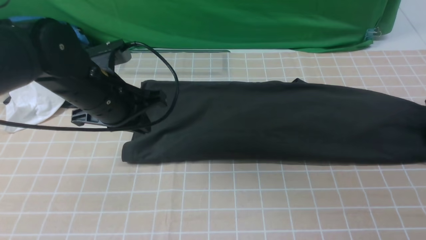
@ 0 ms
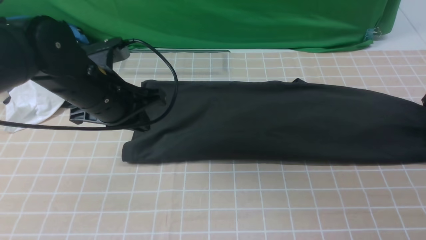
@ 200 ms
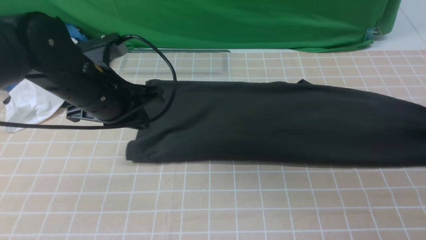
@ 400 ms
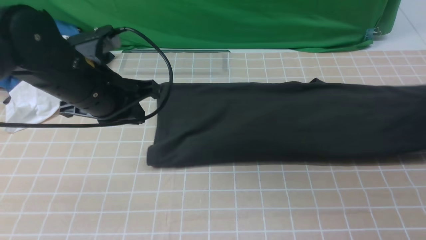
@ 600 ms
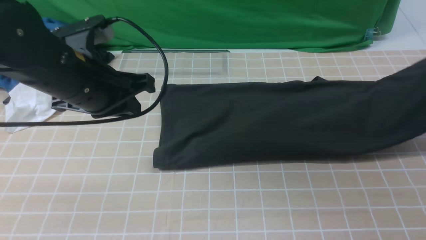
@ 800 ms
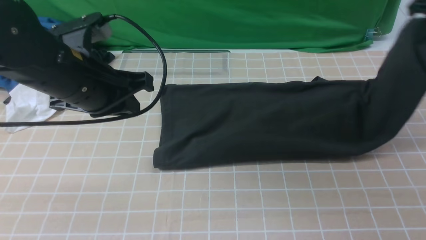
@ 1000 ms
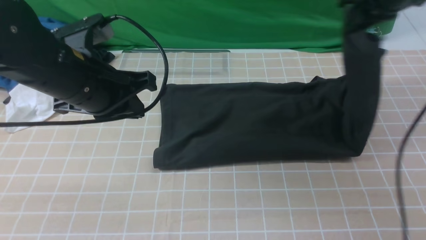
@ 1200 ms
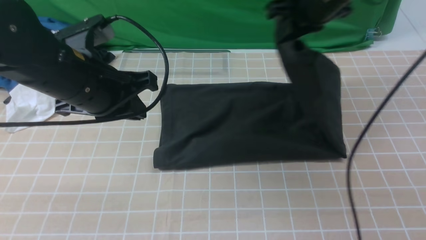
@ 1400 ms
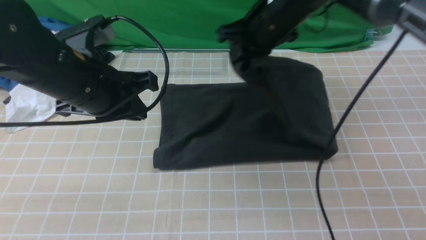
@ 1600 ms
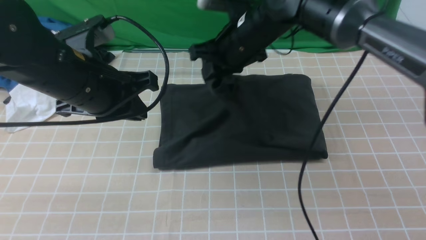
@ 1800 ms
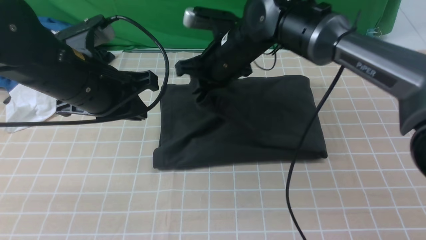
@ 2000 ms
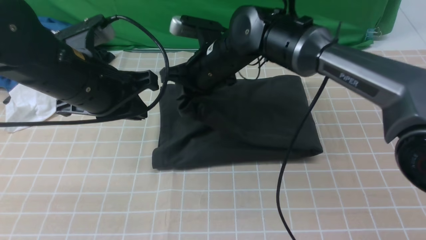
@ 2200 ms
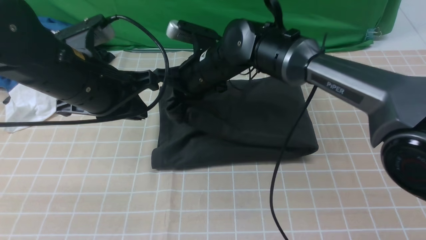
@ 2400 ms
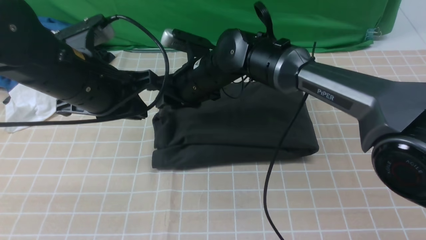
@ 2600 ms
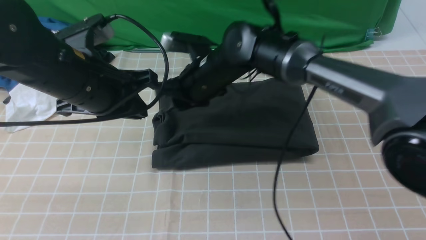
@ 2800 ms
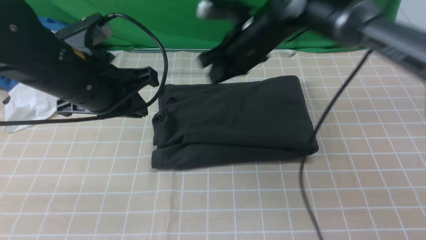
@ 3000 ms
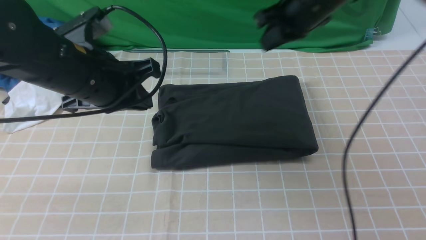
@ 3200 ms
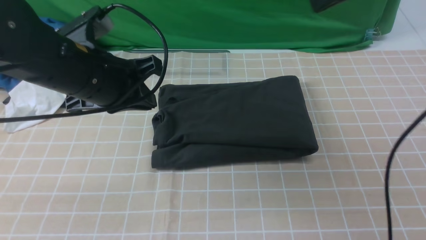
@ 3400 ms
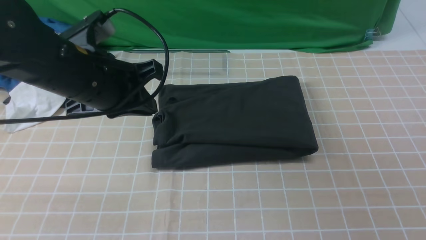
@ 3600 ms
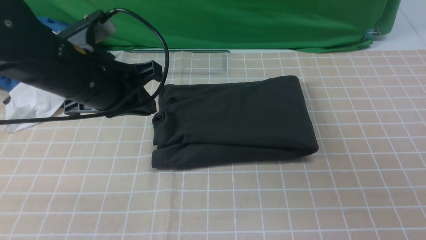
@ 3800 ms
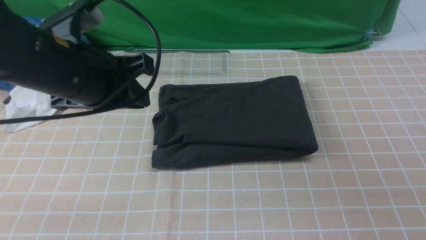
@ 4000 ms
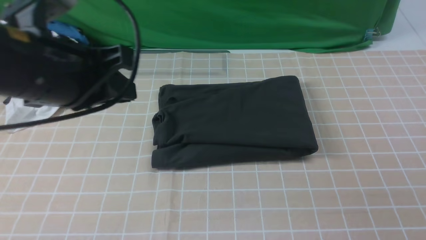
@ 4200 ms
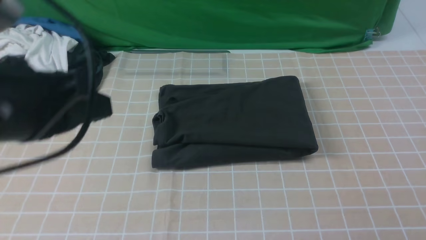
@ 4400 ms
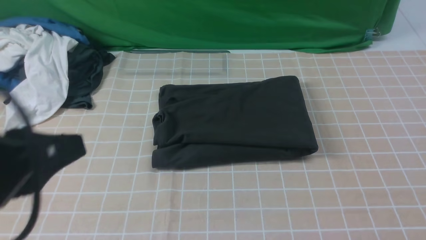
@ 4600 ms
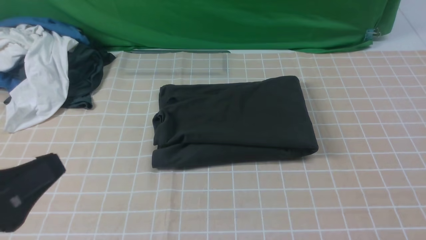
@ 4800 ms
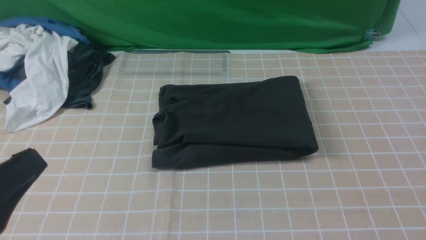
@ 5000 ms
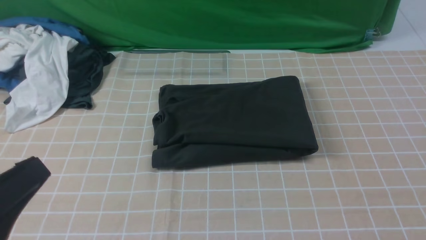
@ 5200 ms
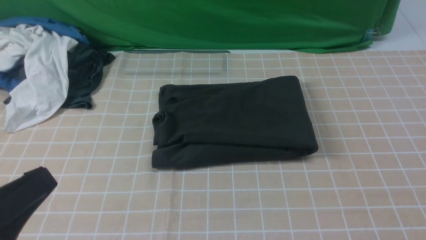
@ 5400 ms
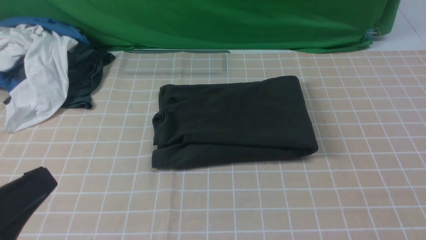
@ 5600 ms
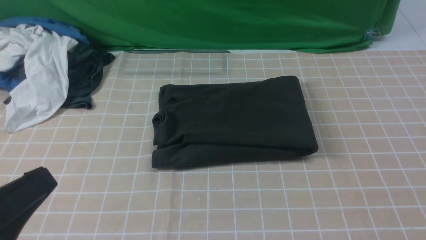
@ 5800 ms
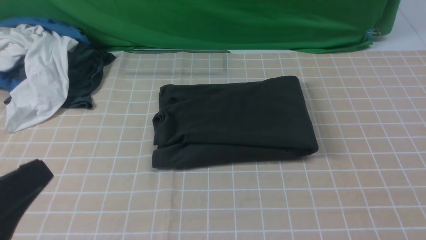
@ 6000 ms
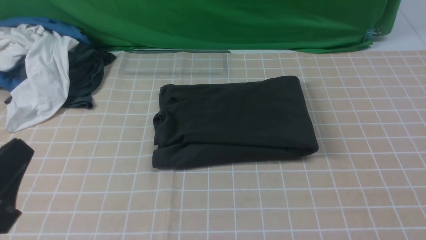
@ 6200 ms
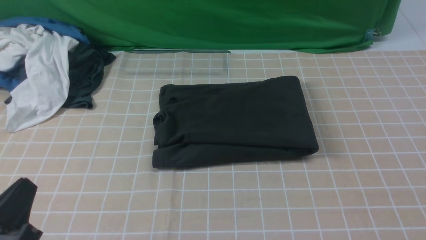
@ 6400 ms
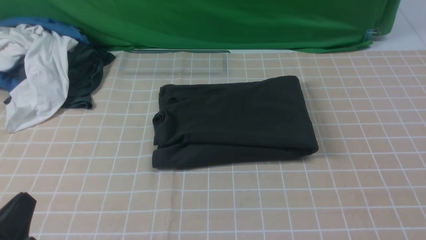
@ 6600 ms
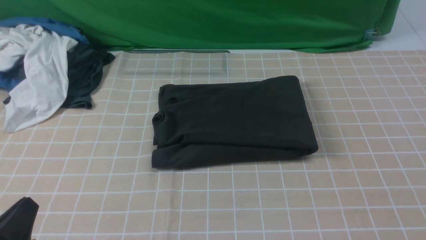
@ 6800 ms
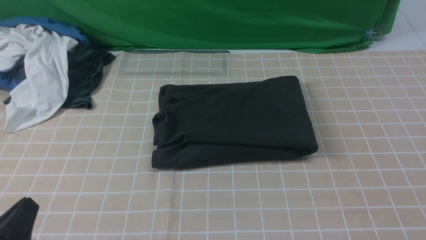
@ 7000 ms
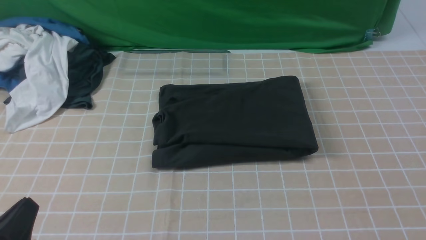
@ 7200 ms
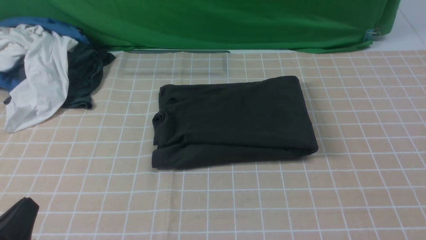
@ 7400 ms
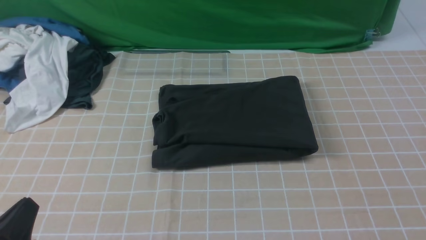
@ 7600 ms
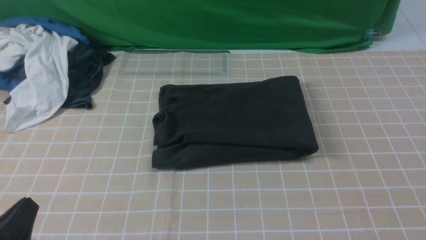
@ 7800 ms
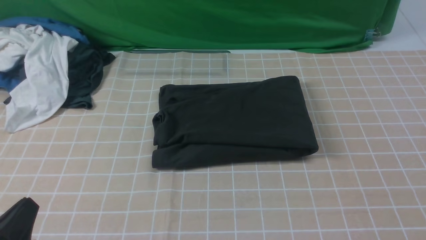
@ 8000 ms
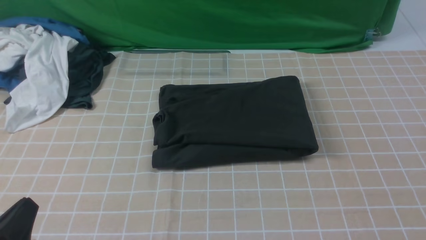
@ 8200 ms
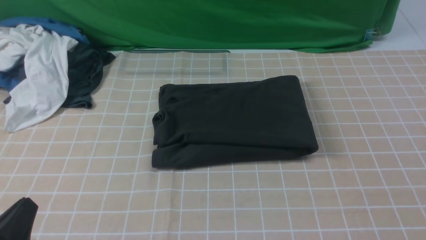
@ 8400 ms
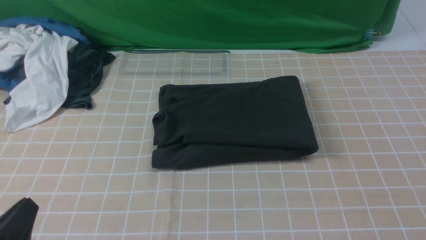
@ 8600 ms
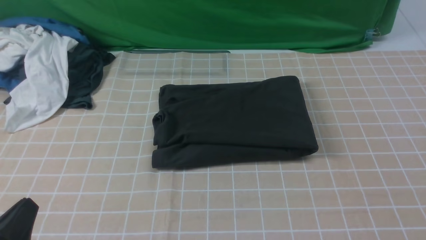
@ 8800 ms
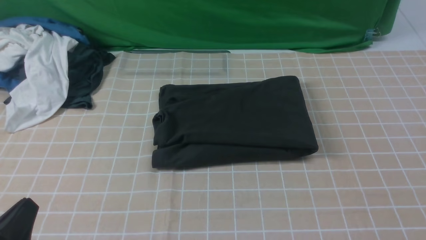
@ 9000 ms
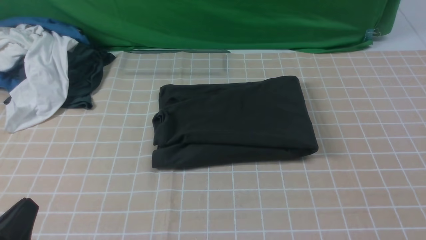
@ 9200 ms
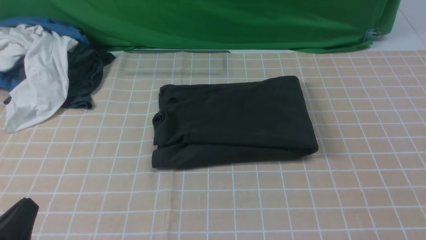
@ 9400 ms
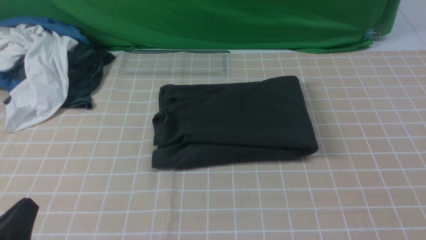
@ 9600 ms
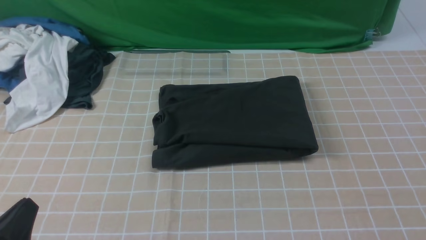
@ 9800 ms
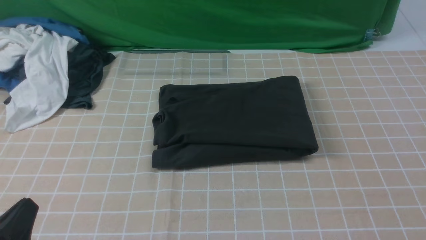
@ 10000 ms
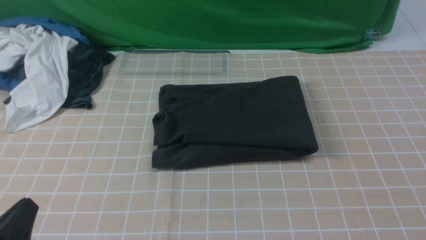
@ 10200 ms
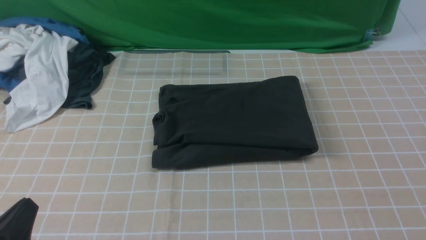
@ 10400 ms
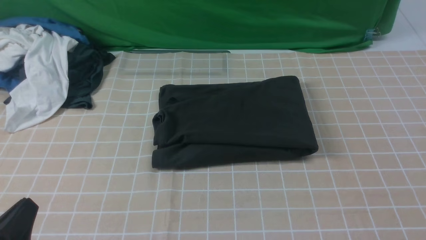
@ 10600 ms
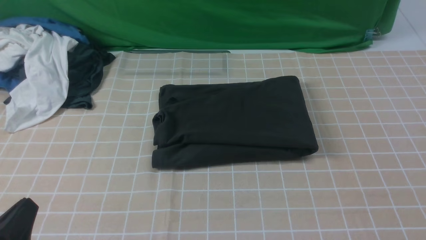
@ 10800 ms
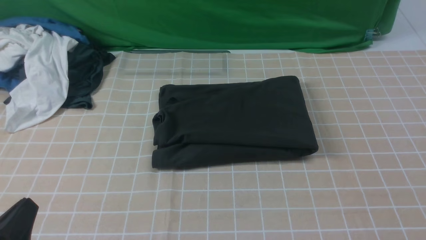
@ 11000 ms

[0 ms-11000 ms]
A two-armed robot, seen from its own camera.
Step, 400 ms to 2600 ms: use the right arm to drag the right edge of the fabric to the left and folds it over the left edge.
0 ms to 1600 ms: The left gripper shifts by approximately 5 cm, while the right gripper is displaced to the left by some 40 cm, and closes up.
1600 ms to 3200 ms: The right gripper moves to the right and upward, roughly 10 cm, and opens and closes again.
3200 ms to 4800 ms: The right gripper moves backward and to the right, roughly 40 cm. The left gripper travels backward by approximately 20 cm.
4800 ms to 6200 ms: The left gripper heads downward, covering approximately 5 cm.
6200 ms to 7800 ms: The left gripper shifts about 5 cm downward.
9400 ms to 11000 ms: Both grippers stay about where they are.

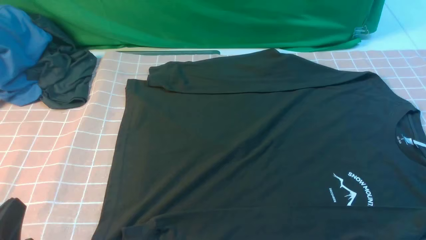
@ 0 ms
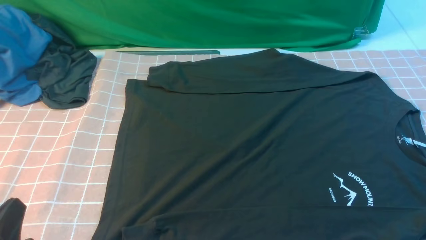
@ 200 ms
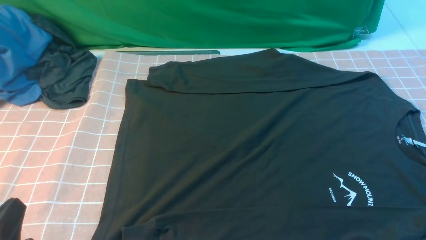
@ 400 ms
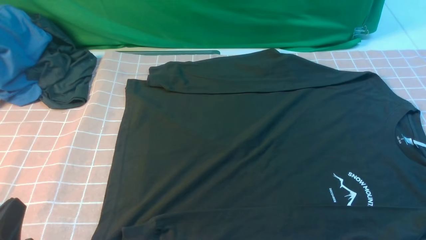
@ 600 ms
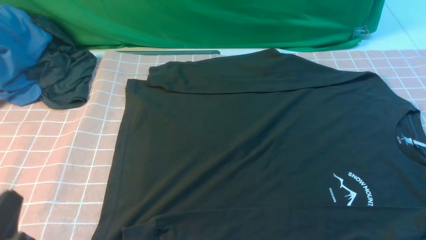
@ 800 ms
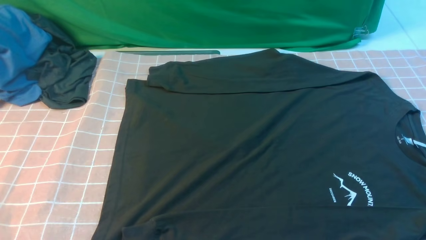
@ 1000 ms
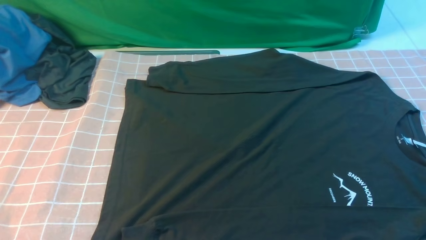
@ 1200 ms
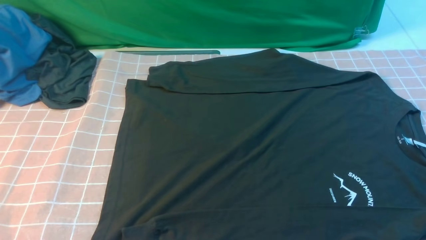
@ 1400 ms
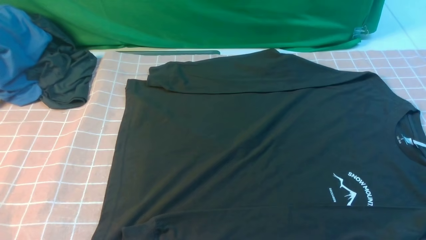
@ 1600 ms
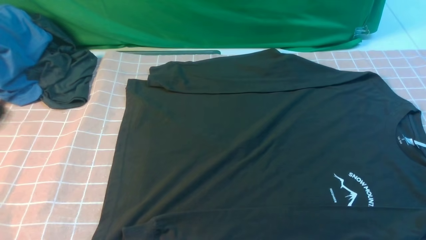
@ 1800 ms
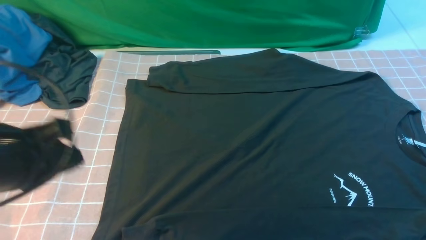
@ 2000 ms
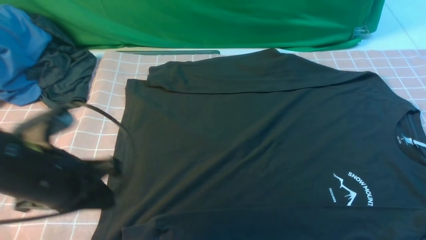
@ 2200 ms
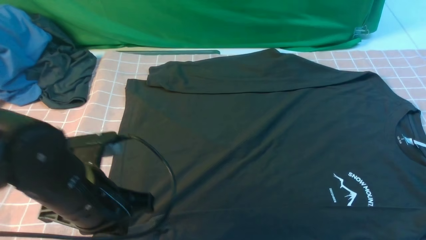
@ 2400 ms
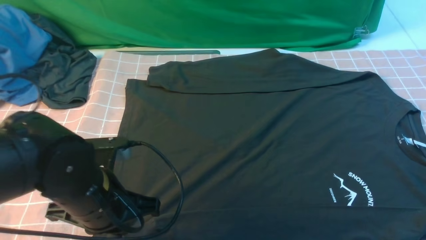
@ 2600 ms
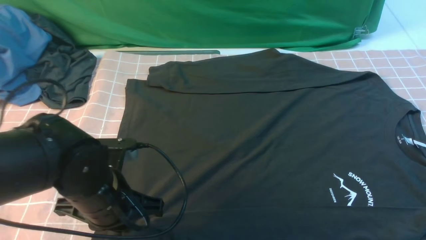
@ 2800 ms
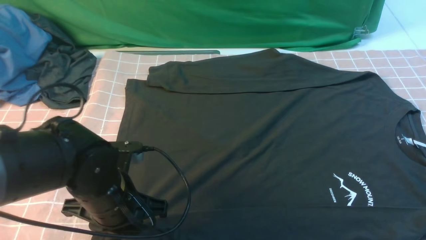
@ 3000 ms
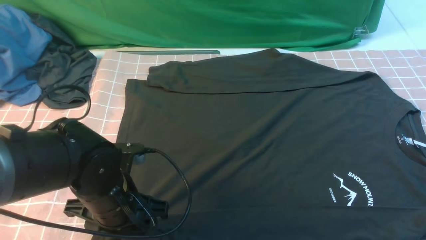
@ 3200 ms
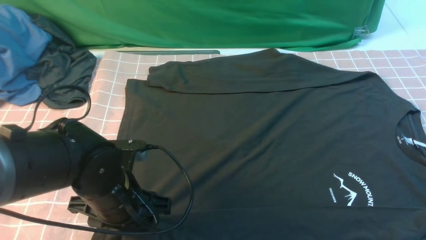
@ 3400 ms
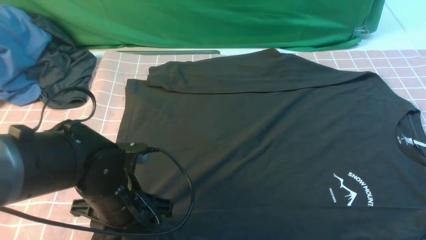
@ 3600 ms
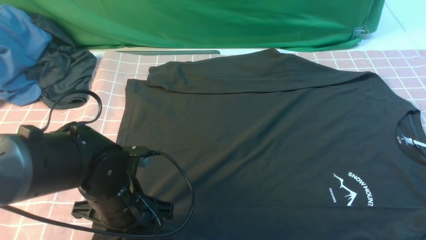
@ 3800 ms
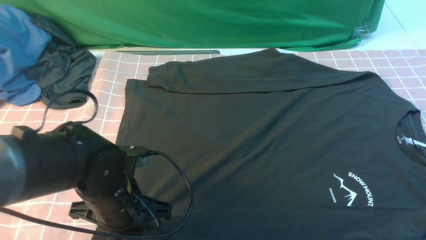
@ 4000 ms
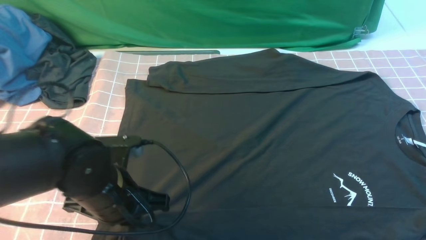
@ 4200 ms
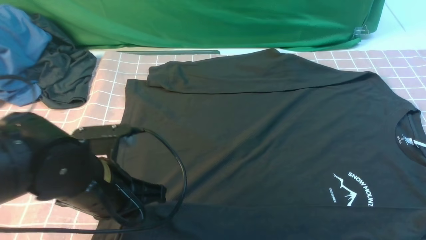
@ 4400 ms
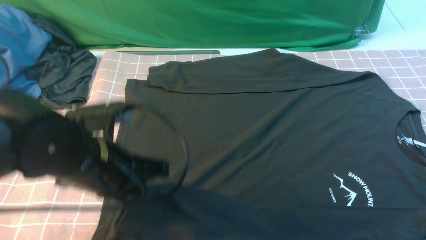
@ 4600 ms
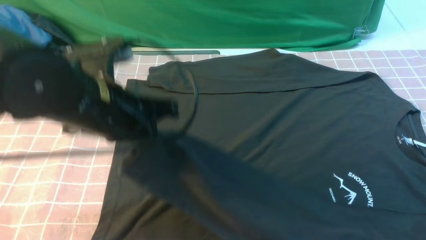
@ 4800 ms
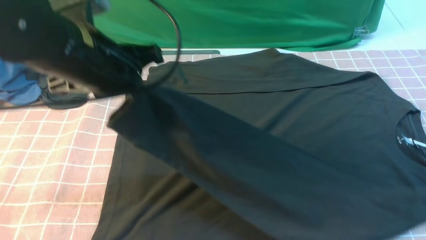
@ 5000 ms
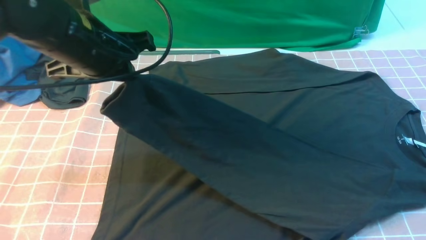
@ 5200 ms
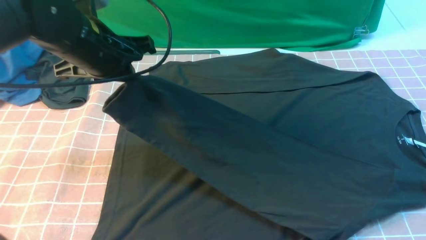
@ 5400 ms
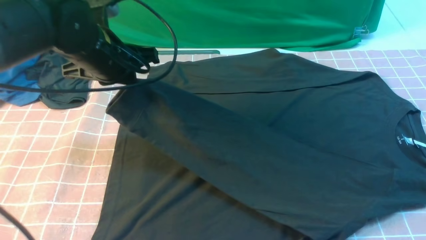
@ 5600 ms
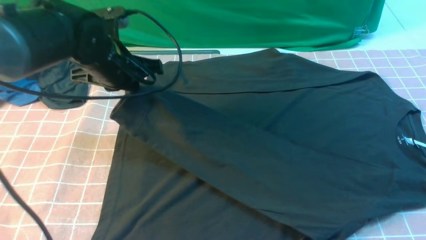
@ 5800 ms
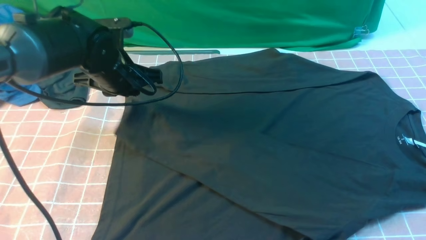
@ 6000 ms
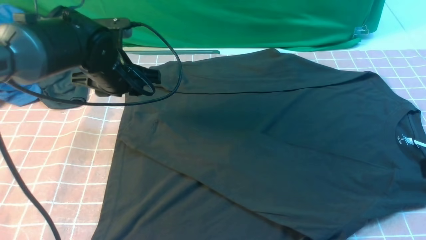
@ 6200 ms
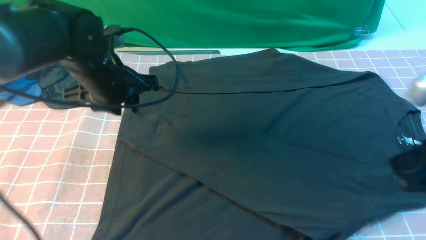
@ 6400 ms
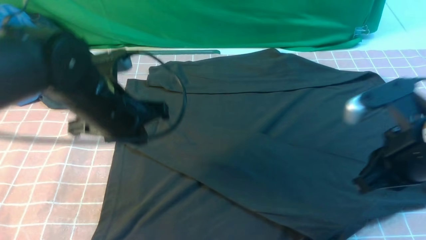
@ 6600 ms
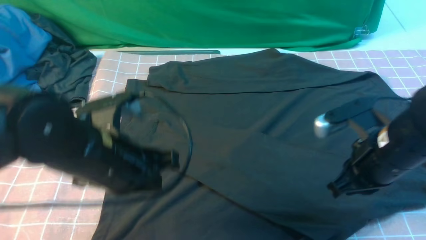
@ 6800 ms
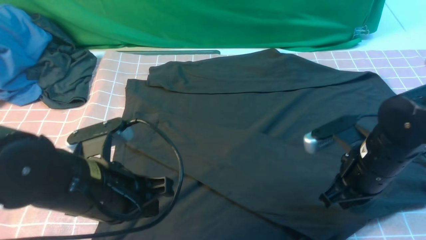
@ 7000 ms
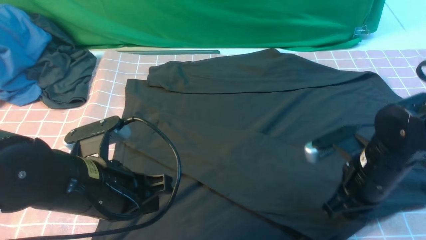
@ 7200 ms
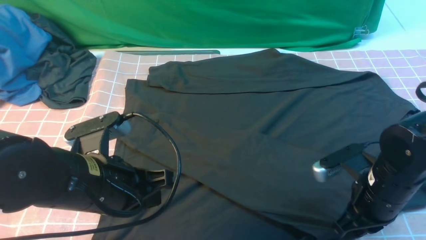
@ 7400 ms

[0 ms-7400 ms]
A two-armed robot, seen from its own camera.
Step, 0 ms to 4400 ms: use the left arm to clamp the cuff closest to it.
Step, 4600 ms to 6000 ms: use the left arm to drag and place the cuff at the centered position on the left edge of the fabric.
0 ms to 1400 ms: The left gripper shifts some 10 cm upward.
1400 ms to 3000 ms: The right gripper travels upward by roughly 15 cm, and closes up; the left gripper moves forward, to the right and downward, approximately 25 cm, and opens up.
3000 ms to 4400 ms: The left gripper closes its fingers.
4400 ms to 6000 ms: The left gripper heads forward, covering some 15 cm.
6000 ms to 7400 ms: The left gripper travels backward by roughly 20 cm, and closes its fingers, while the right gripper heads downward and forward, covering roughly 20 cm.
